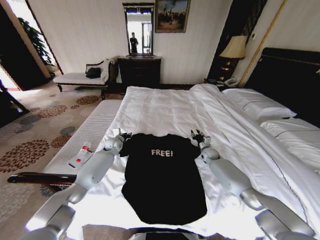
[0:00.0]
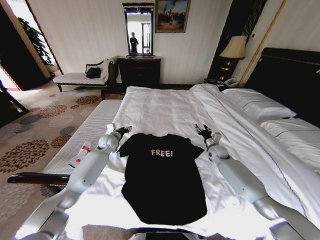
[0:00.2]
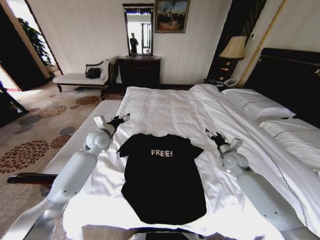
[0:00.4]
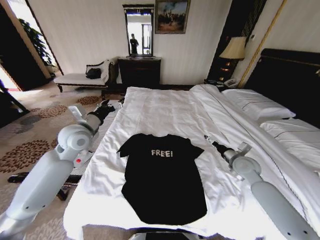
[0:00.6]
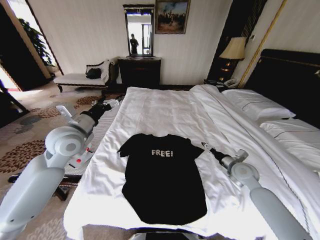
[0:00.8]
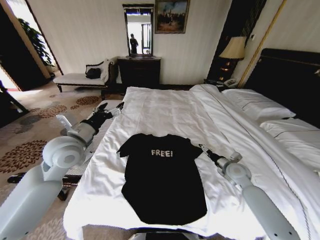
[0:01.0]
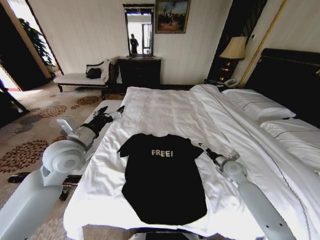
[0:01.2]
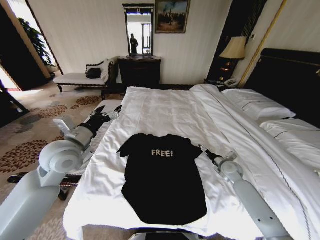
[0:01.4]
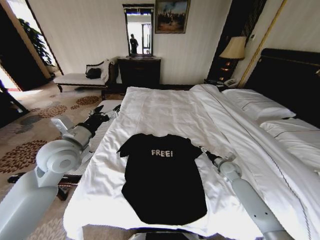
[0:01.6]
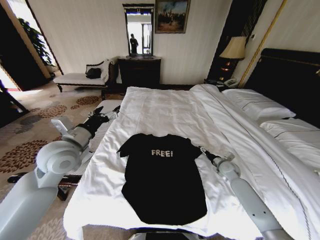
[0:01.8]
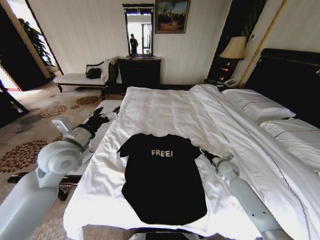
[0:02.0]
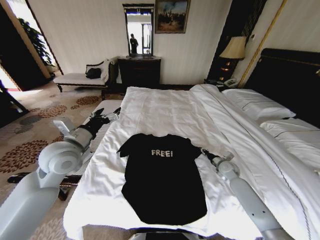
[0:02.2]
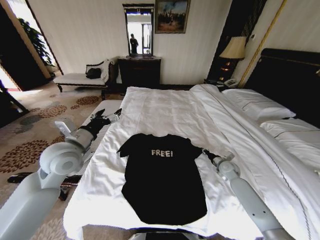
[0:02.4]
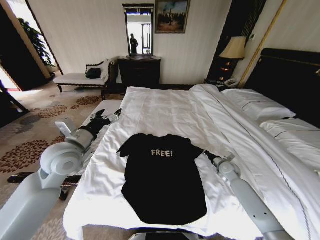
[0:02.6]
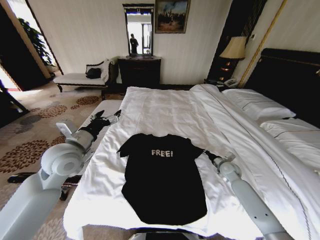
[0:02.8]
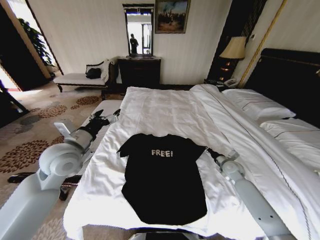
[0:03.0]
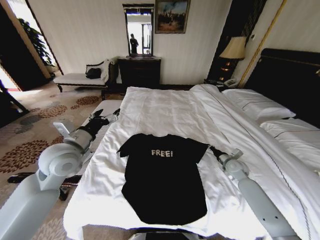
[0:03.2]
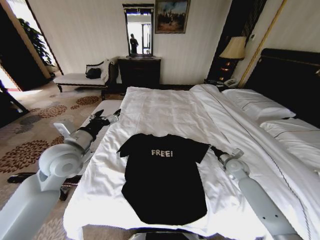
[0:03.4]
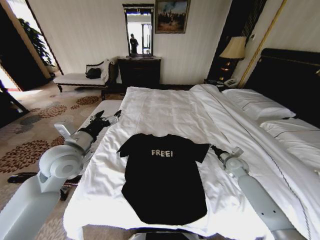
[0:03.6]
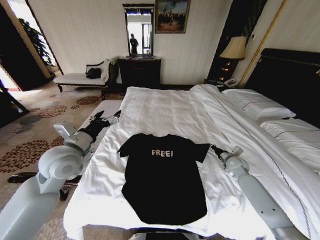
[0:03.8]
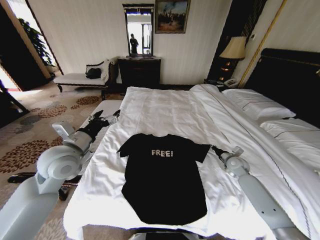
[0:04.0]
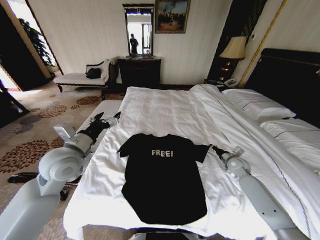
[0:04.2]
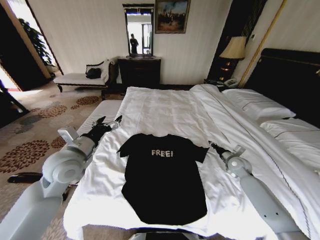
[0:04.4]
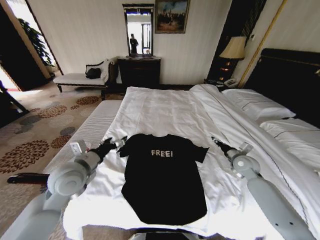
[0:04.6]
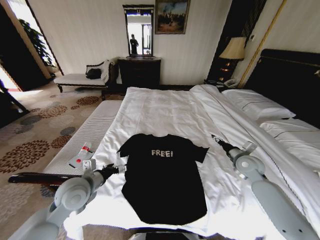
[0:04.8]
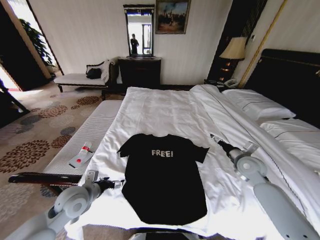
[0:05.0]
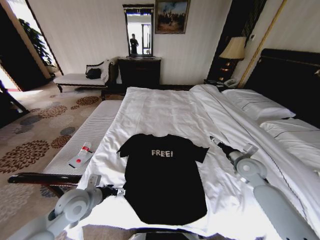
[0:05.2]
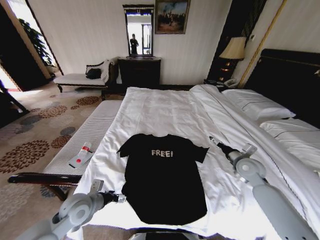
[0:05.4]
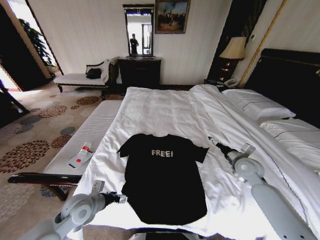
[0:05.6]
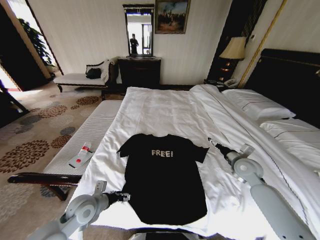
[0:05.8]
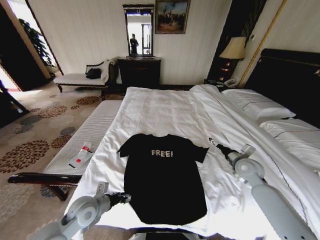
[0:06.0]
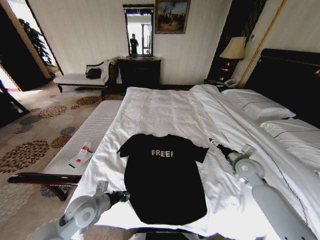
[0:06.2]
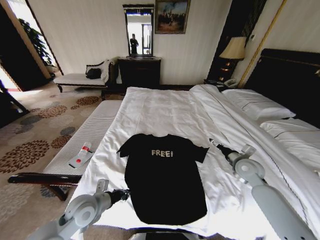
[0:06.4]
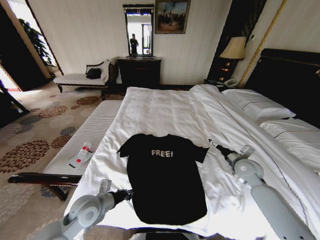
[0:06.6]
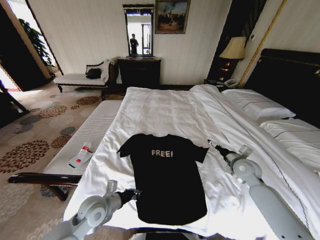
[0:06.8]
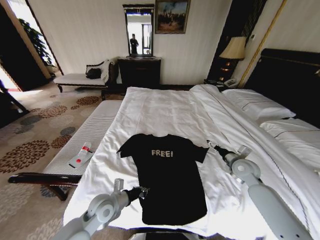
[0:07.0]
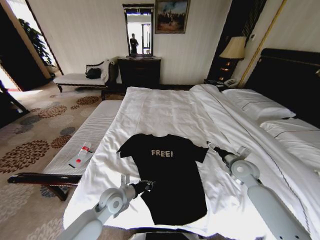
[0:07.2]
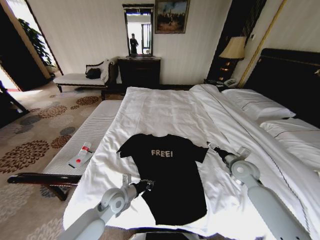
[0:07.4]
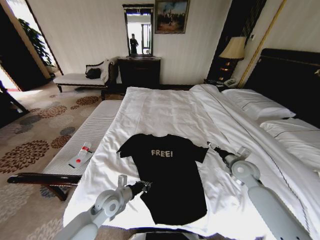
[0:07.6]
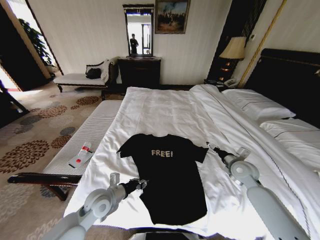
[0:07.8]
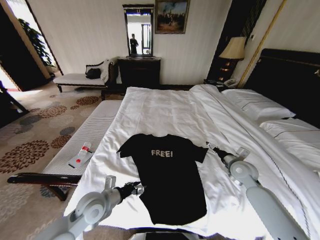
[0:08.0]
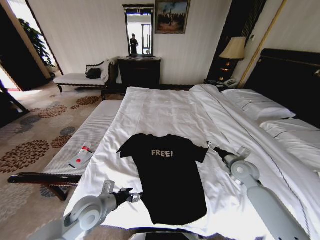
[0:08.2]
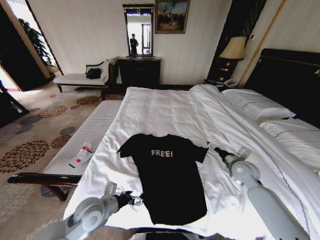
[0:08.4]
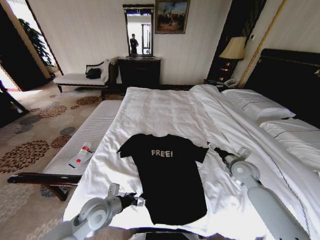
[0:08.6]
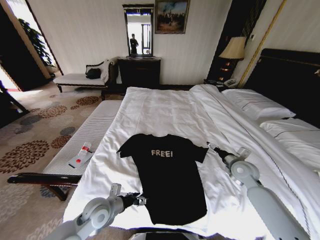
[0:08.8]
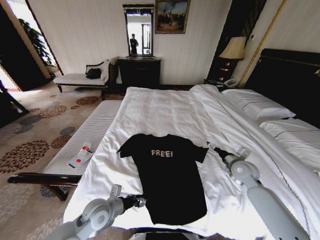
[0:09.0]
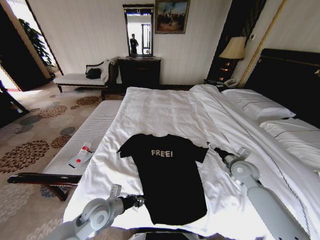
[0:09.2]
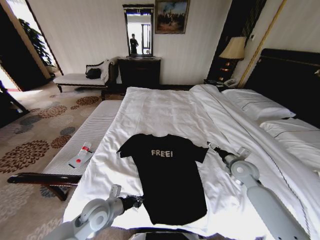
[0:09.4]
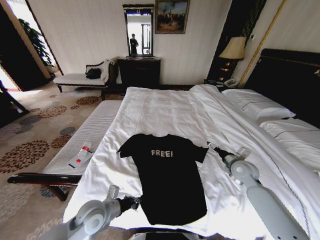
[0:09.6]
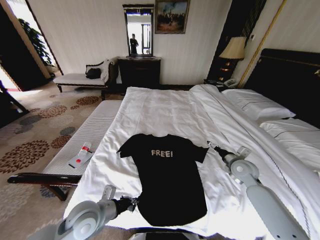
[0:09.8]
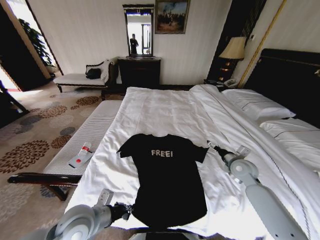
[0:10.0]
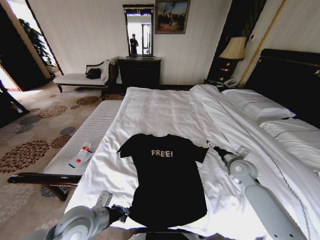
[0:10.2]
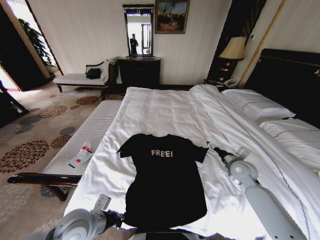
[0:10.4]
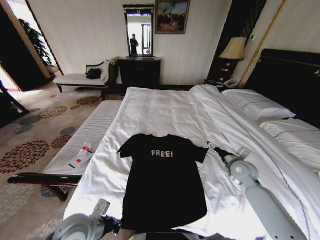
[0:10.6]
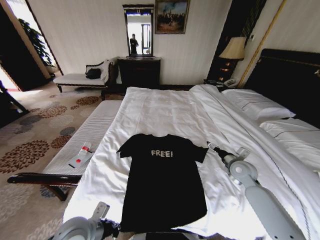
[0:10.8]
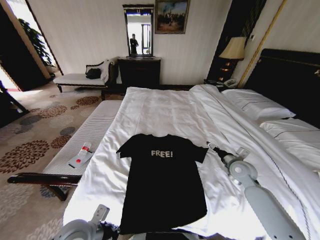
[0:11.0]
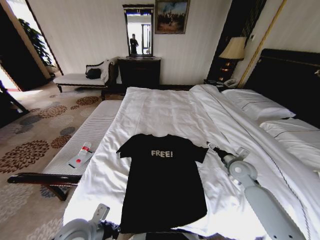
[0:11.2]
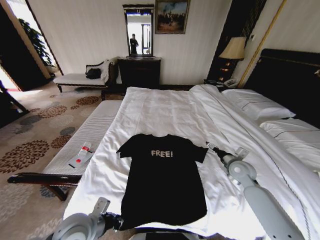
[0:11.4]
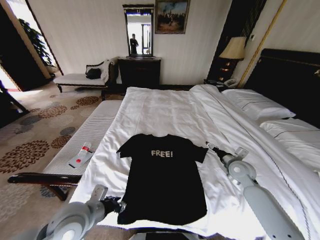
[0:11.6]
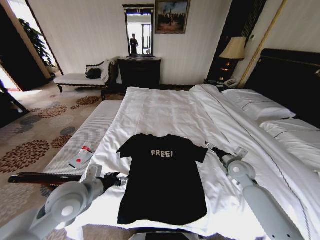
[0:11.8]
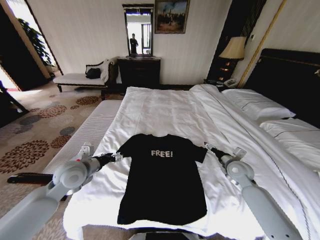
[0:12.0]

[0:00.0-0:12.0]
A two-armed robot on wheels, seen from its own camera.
Task of the whole recording: Fold the clothes on the bed.
0:00.0 to 0:01.6: The right gripper heads backward and to the right, covering roughly 15 cm, and opens its fingers. Meanwhile the left gripper goes about 30 cm backward and upward, and opens.
0:01.6 to 0:03.0: The right gripper closes.
0:03.0 to 0:04.4: The grippers move only a little.
0:04.4 to 0:06.0: The right gripper moves upward and backward, approximately 10 cm, and opens its fingers. The left gripper goes approximately 20 cm downward, and closes.
0:06.0 to 0:07.6: The left gripper heads to the right, covering approximately 5 cm, and closes up.
0:07.6 to 0:09.0: The left gripper opens up.
0:09.0 to 0:10.4: The left gripper heads upward, covering some 5 cm, and closes its fingers.
0:10.4 to 0:12.0: The left gripper is displaced forward, upward and to the left by roughly 15 cm, and opens.

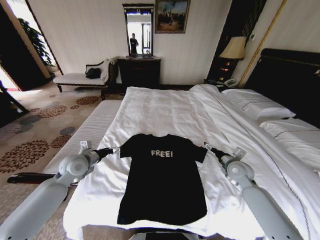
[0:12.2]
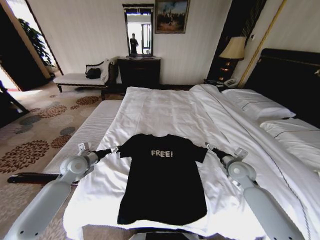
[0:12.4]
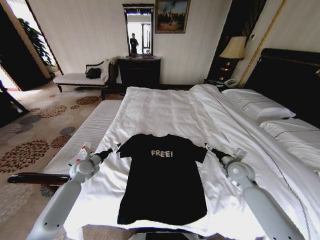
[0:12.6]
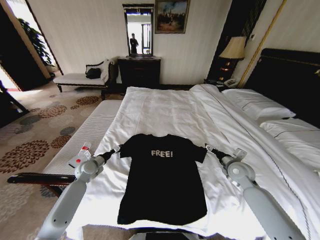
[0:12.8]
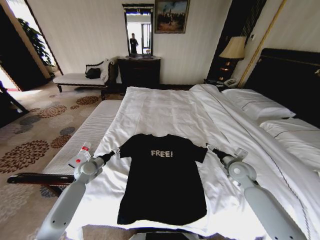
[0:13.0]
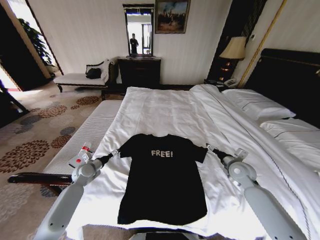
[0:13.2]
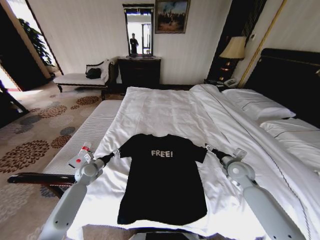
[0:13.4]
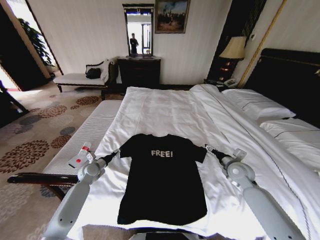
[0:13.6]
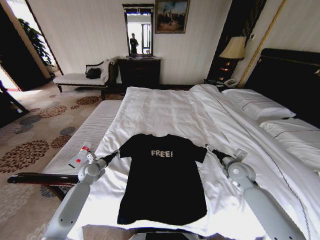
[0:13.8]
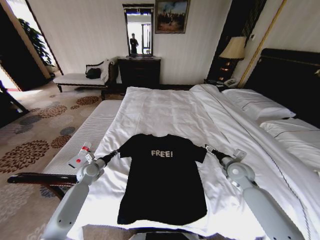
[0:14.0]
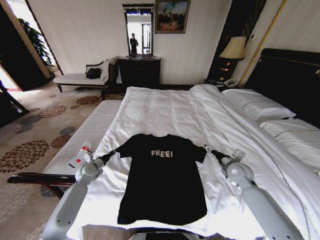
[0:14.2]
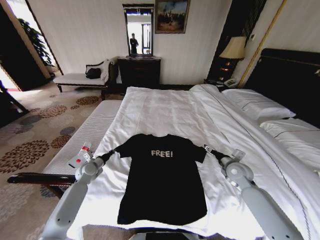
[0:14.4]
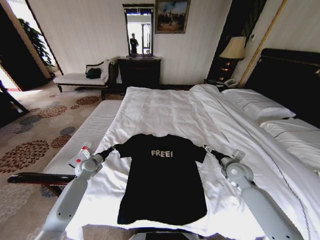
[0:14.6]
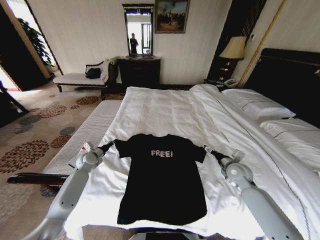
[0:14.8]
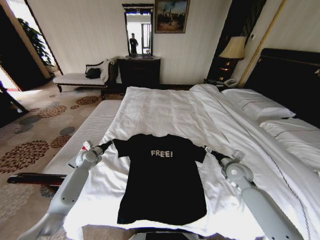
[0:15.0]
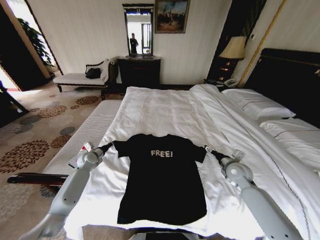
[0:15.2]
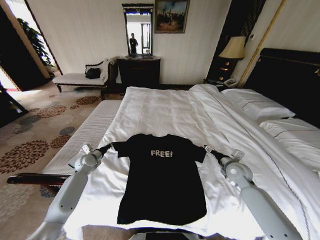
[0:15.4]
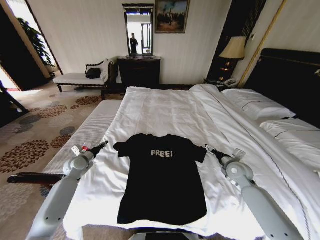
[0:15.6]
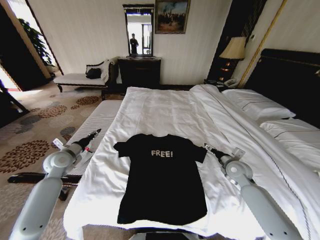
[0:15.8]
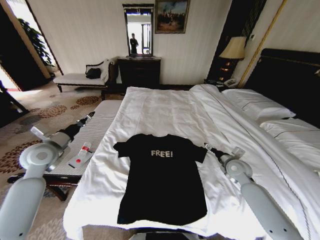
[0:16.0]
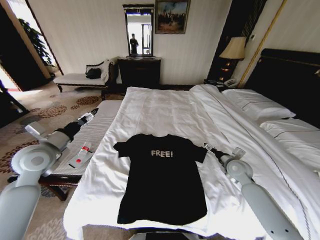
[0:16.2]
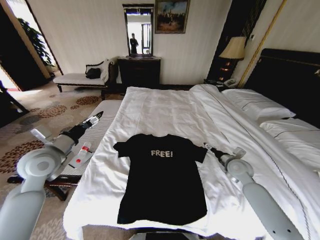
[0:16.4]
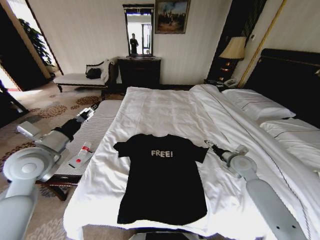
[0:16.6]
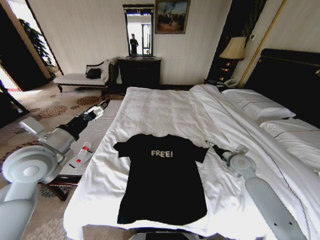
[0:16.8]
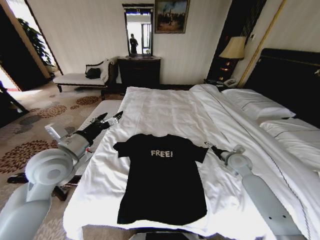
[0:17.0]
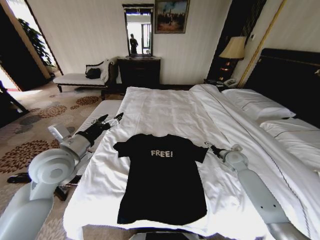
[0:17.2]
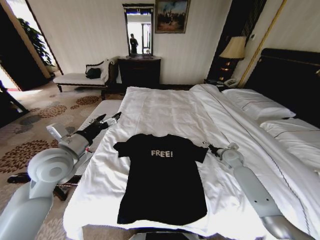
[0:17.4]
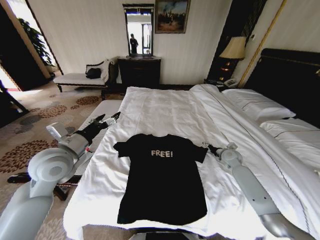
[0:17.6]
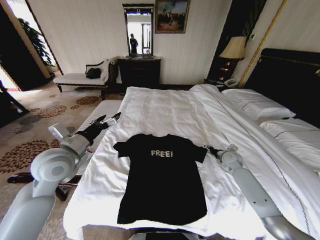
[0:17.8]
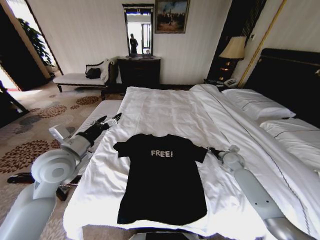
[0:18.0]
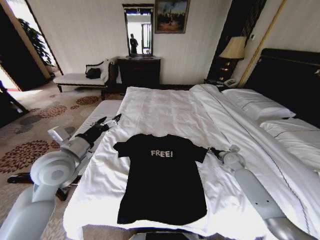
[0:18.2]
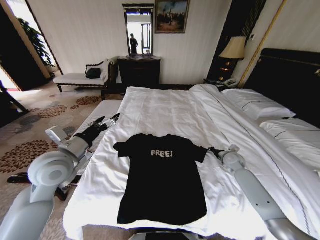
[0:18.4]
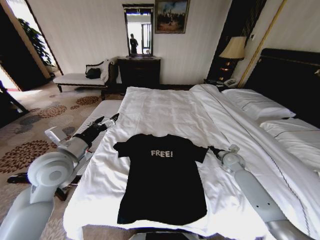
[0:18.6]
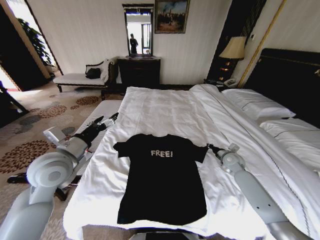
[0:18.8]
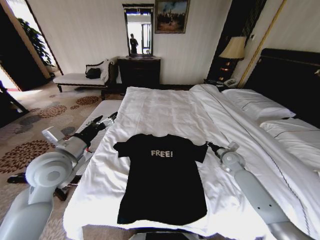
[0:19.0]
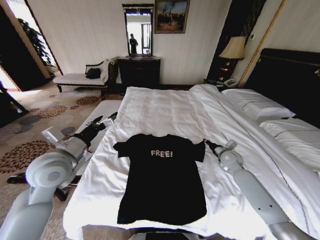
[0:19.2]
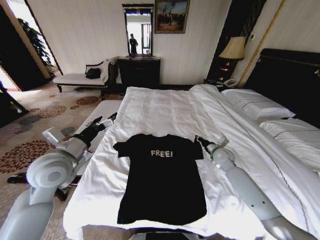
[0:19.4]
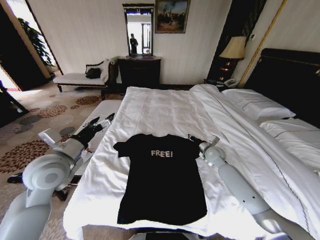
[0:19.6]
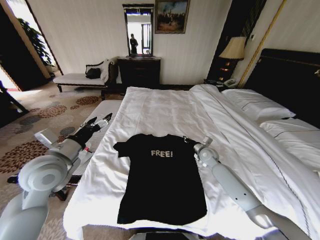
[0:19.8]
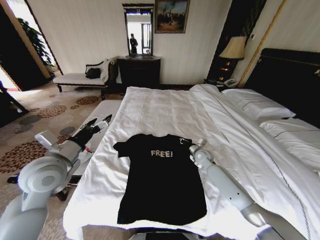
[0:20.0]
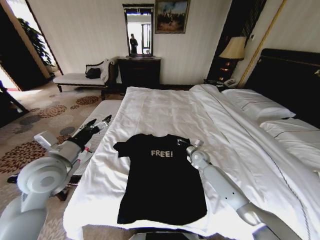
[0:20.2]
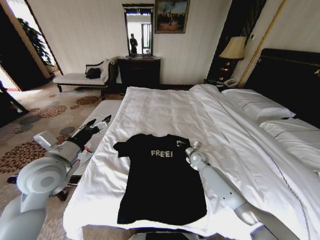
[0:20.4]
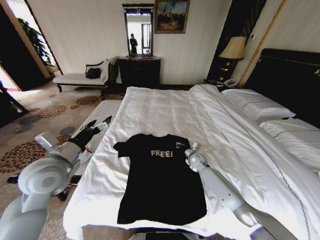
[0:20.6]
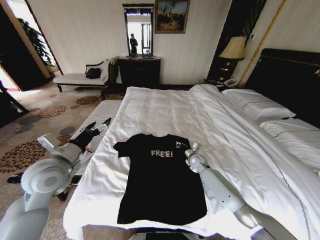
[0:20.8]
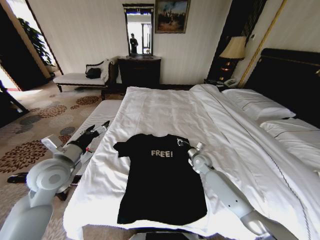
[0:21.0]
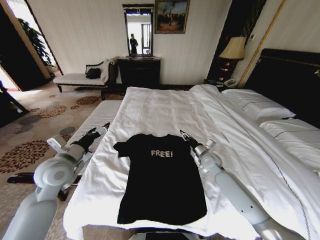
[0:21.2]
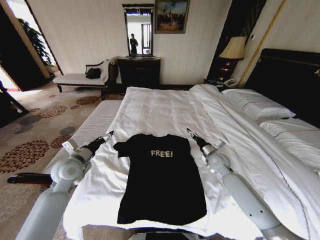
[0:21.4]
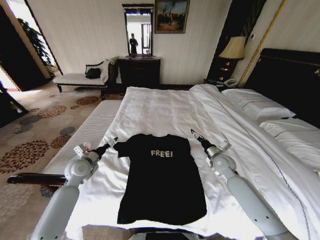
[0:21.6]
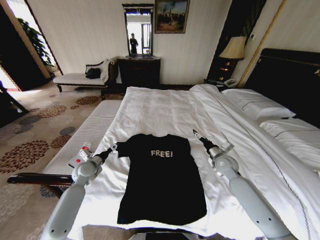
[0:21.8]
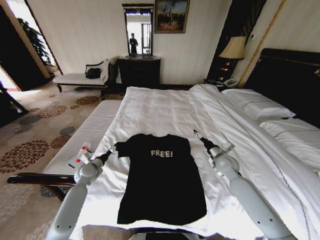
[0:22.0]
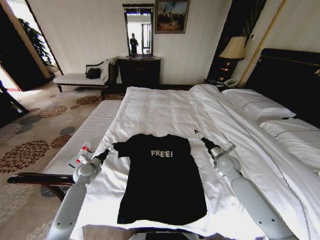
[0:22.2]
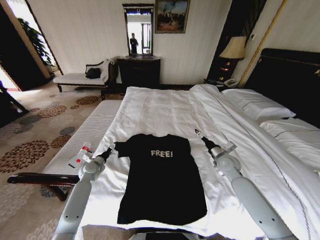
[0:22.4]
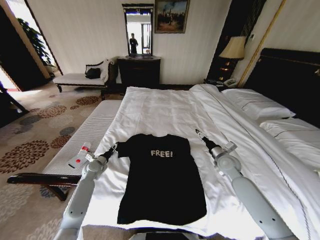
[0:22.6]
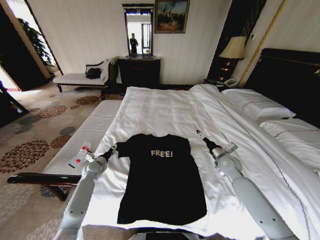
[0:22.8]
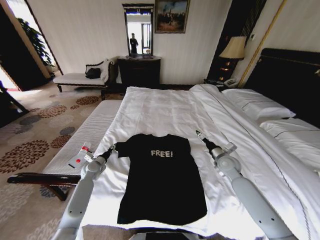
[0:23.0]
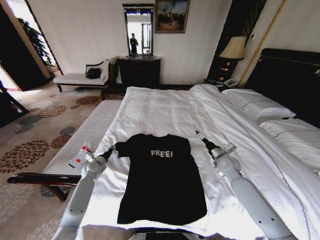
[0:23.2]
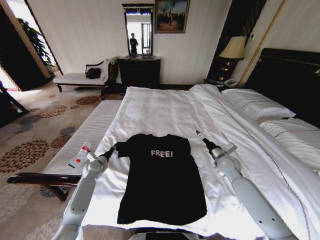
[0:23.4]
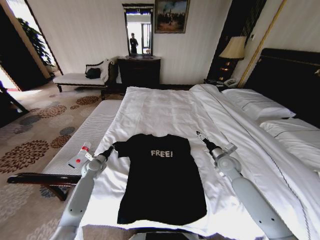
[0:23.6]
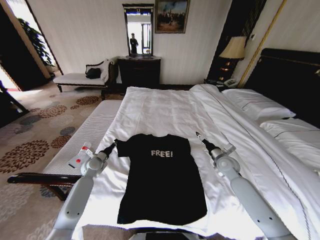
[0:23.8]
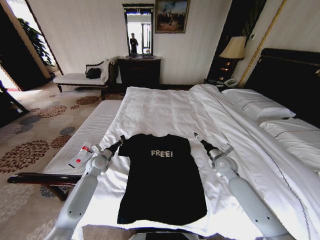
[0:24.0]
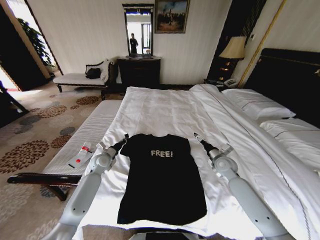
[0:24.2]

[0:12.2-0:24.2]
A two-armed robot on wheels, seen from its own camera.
Task of the whole recording: Fold the clothes on the bed.
0:12.2 to 0:13.8: The left gripper moves downward, approximately 15 cm, and closes its fingers.
0:13.8 to 0:15.2: The left gripper heads forward, covering some 5 cm, and closes up.
0:15.2 to 0:16.6: The left gripper shifts approximately 30 cm upward and backward, and opens its fingers.
0:16.6 to 0:18.2: The left gripper moves to the right, about 5 cm. The right gripper shifts approximately 10 cm downward and forward, and closes its fingers.
0:18.2 to 0:19.8: The right gripper moves to the left, roughly 15 cm.
0:19.8 to 0:21.2: The right gripper opens up, while the left gripper ends up roughly 5 cm from where it was.
0:21.2 to 0:22.6: The right gripper moves to the right, roughly 5 cm, and opens up; the left gripper travels downward and forward by about 25 cm.
0:22.6 to 0:24.2: The left gripper goes approximately 10 cm to the right and upward, and closes.
